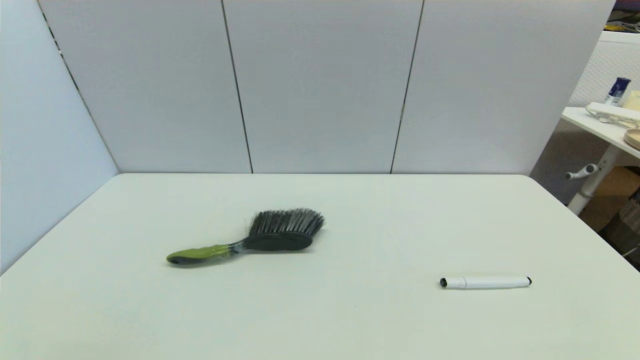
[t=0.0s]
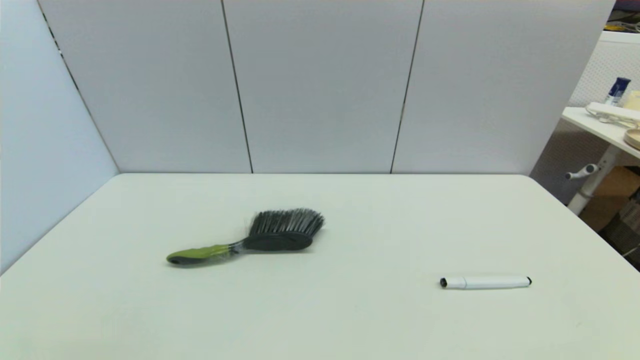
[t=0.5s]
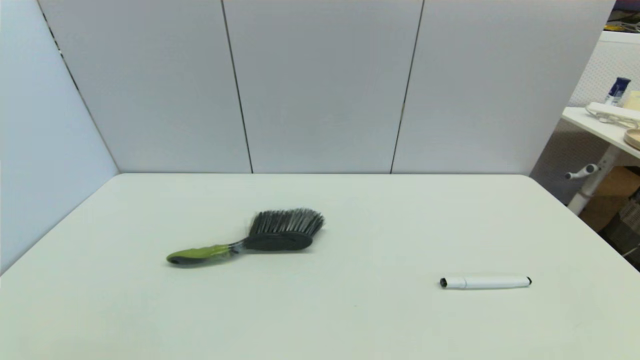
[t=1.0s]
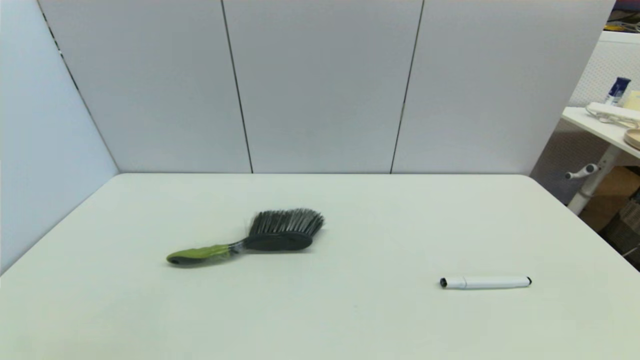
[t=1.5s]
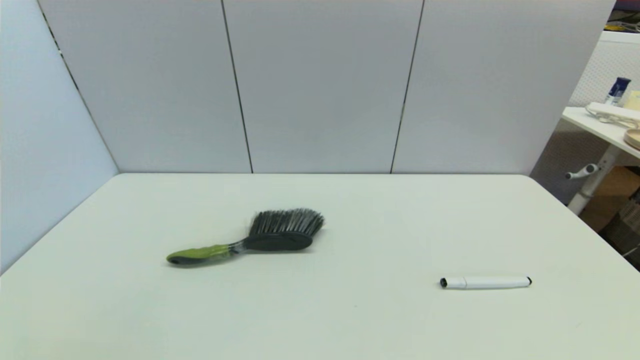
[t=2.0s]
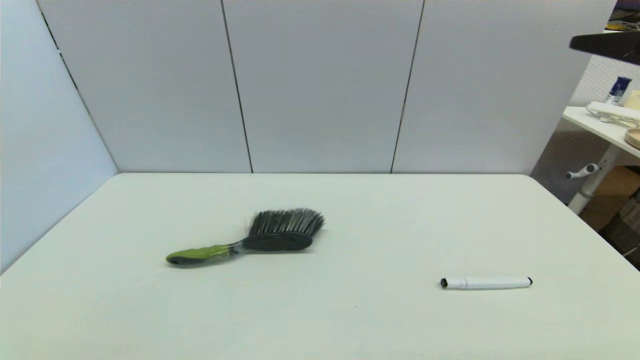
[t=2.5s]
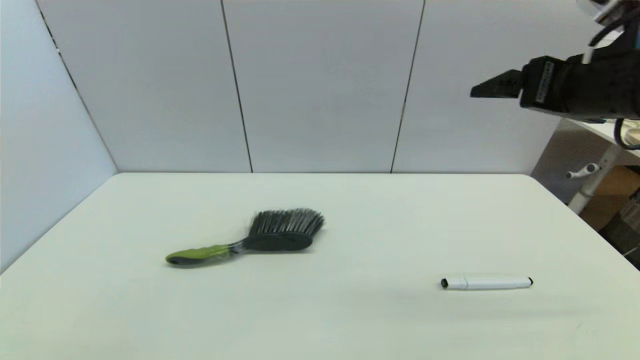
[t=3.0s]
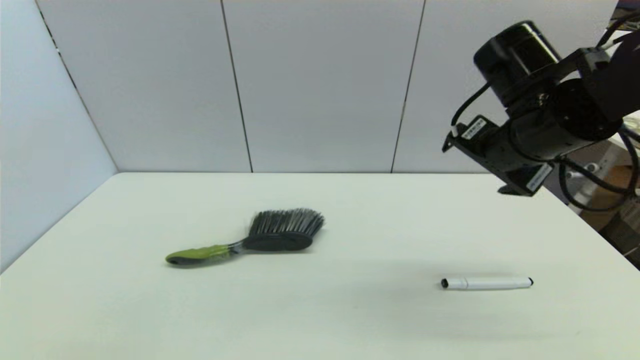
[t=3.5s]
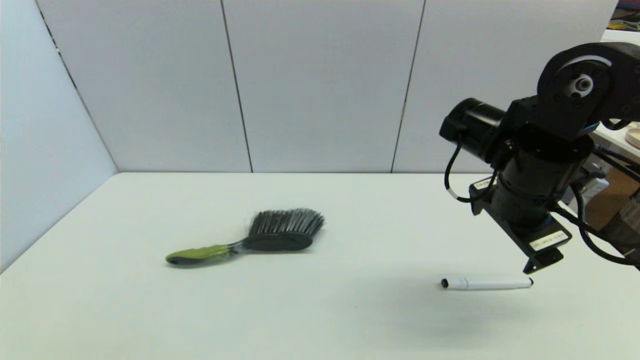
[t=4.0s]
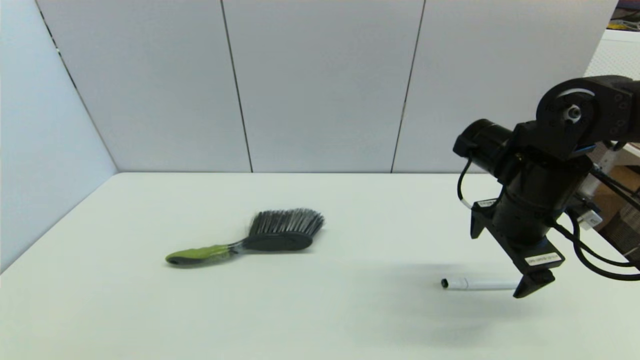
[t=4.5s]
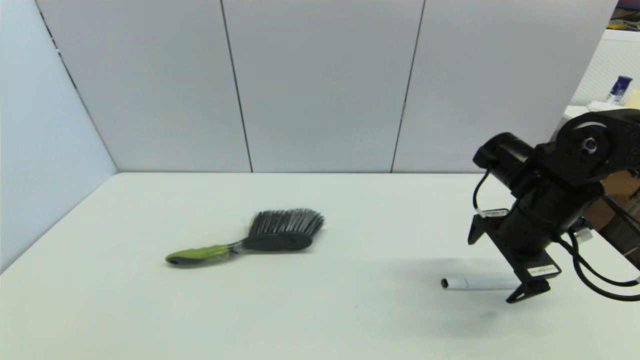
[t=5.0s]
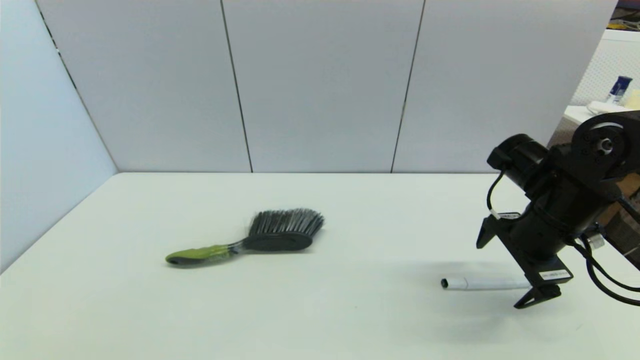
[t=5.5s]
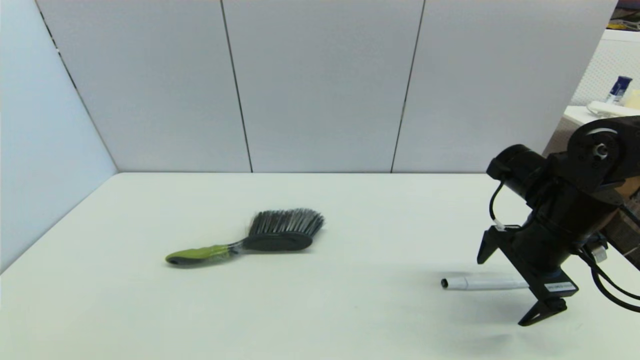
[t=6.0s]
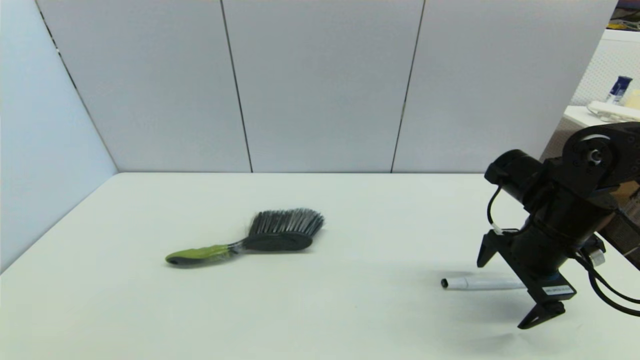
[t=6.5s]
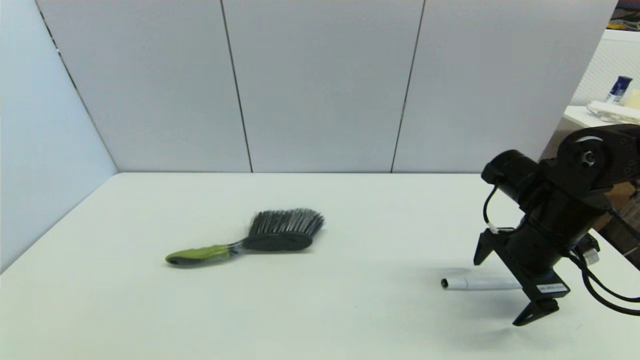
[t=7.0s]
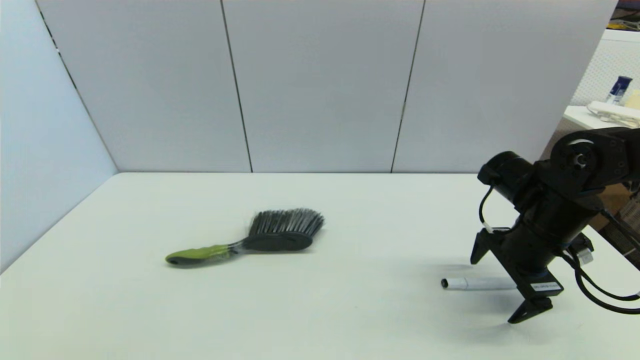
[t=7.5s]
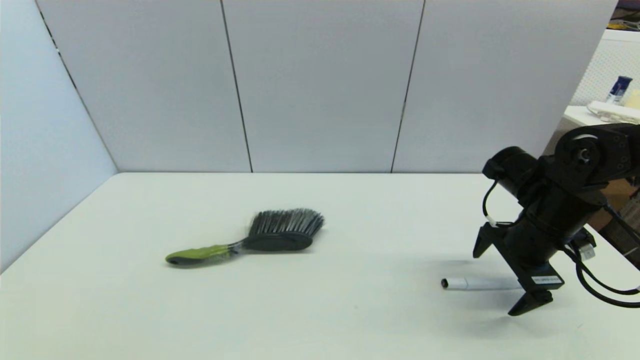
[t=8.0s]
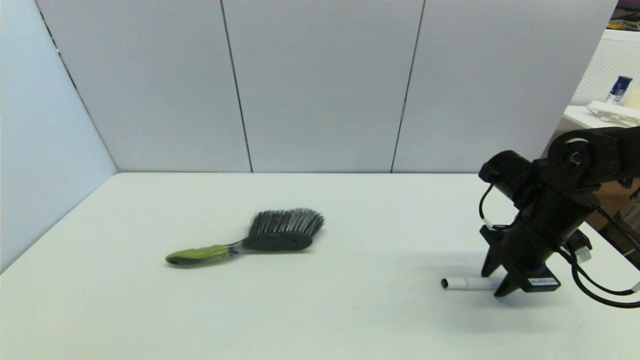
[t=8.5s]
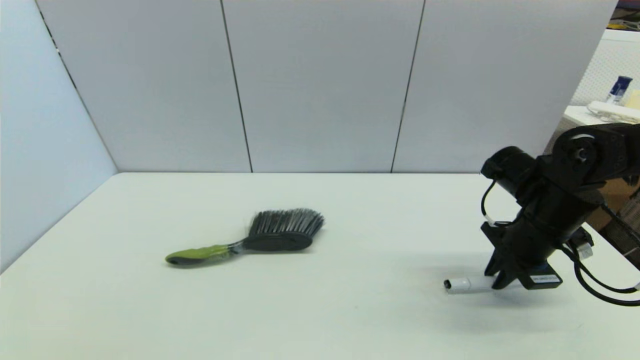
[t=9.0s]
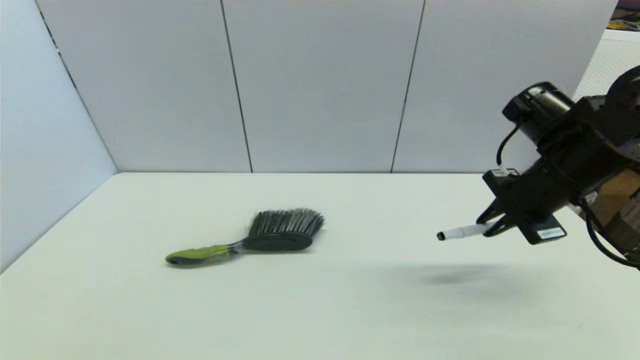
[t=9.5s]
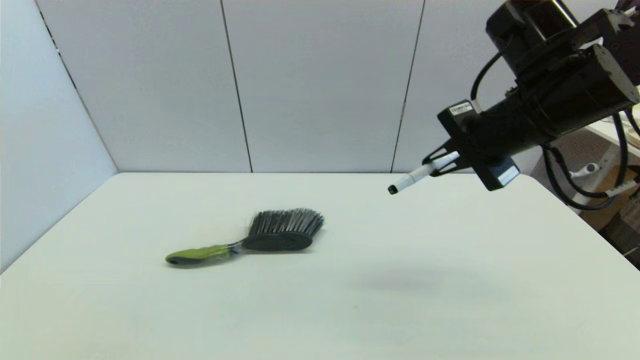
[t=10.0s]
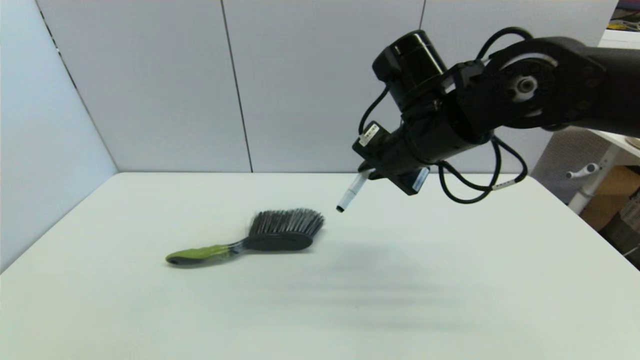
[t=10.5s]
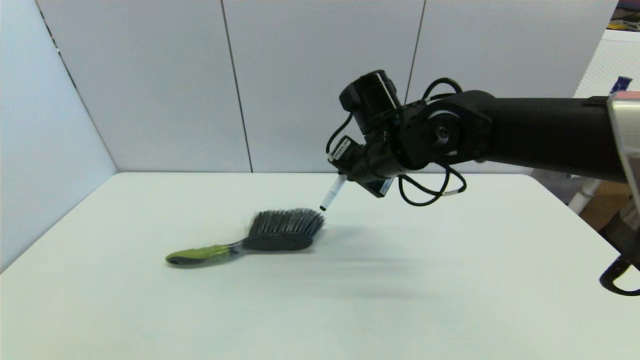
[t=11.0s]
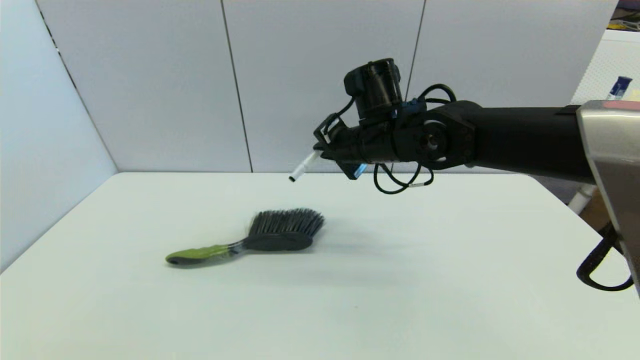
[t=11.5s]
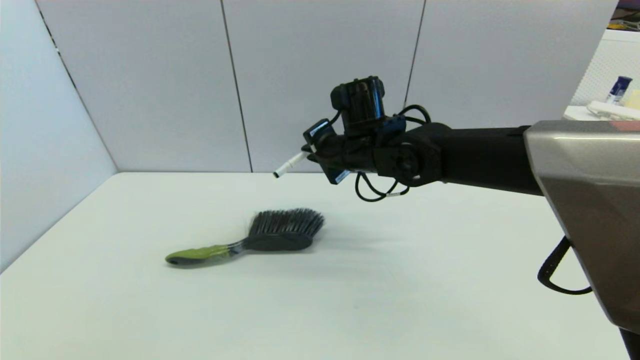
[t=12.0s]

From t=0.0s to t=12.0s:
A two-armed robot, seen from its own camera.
Task of the whole recording: put the black marker in the designated position.
Step, from t=2.5s to t=8.5s: Grasp the Marker pen with right gripper.
From t=2.0s to t=4.0s: The right gripper goes roughly 30 cm forward, to the left and downward.
From t=4.0s to t=6.0s: The right gripper travels to the right and downward by roughly 10 cm.
From t=6.0s to t=8.0s: The grippers make only small movements.
From t=8.0s to t=10.0s: The right gripper goes about 20 cm upward and to the left, and closes up.
From t=10.0s to t=12.0s: The right gripper shifts approximately 20 cm to the left, forward and downward.

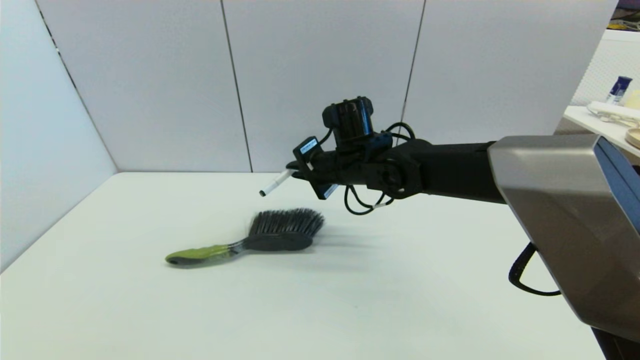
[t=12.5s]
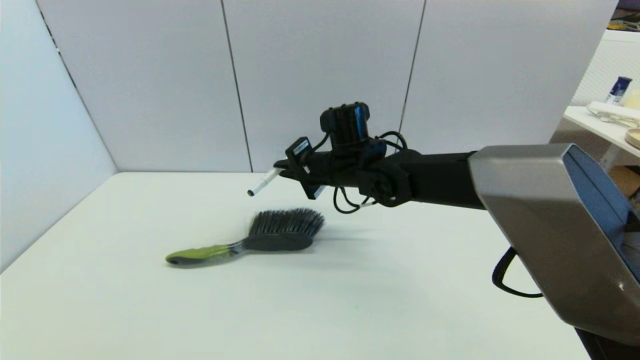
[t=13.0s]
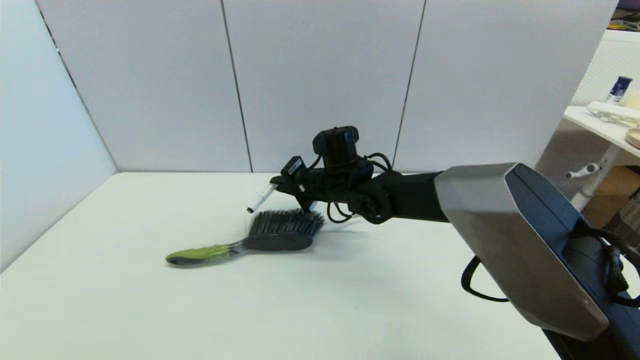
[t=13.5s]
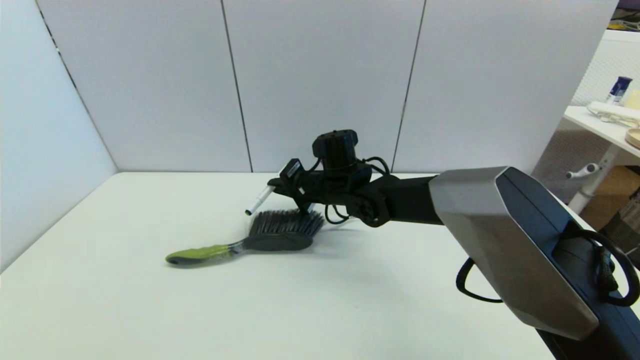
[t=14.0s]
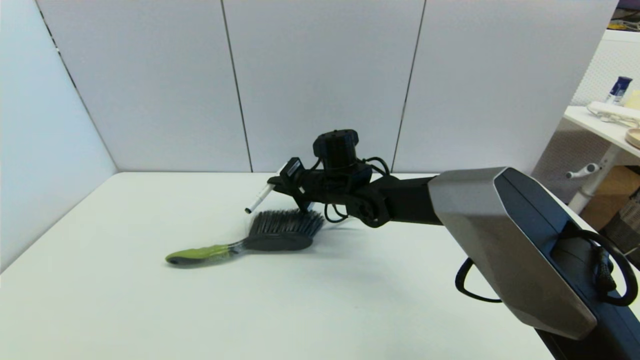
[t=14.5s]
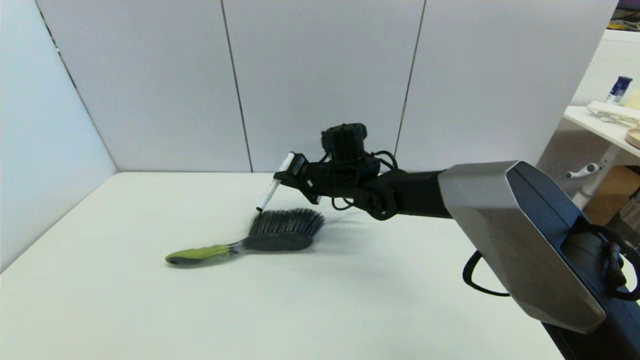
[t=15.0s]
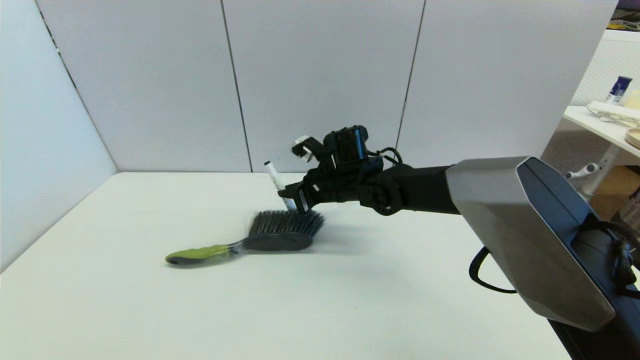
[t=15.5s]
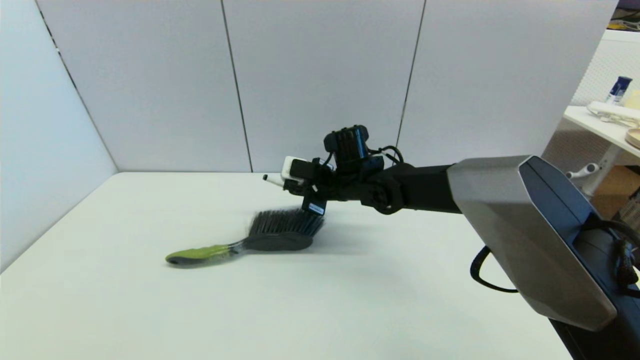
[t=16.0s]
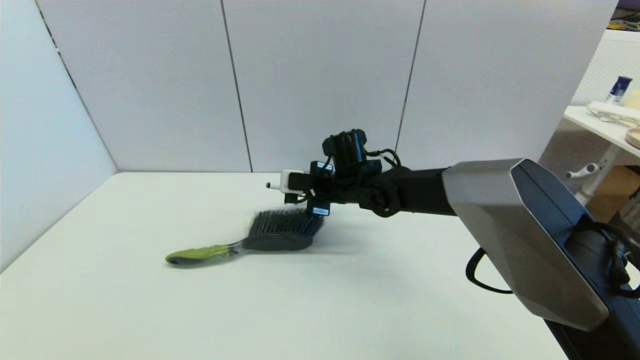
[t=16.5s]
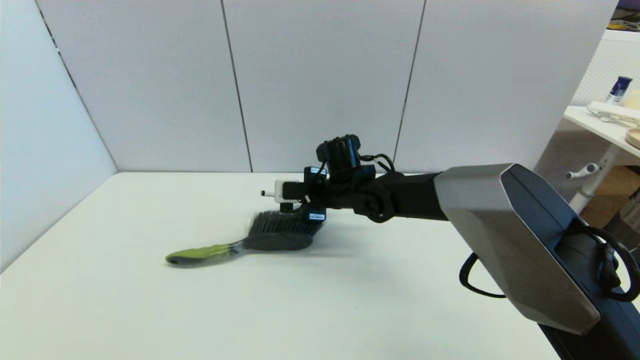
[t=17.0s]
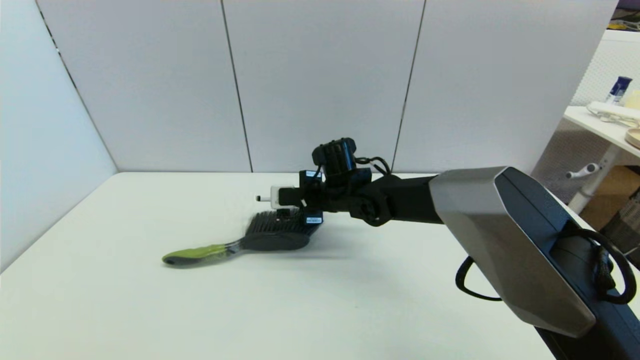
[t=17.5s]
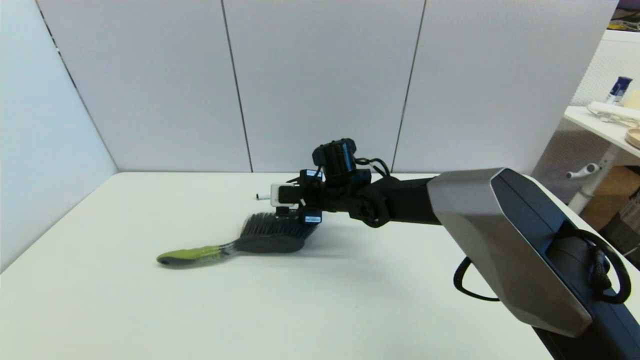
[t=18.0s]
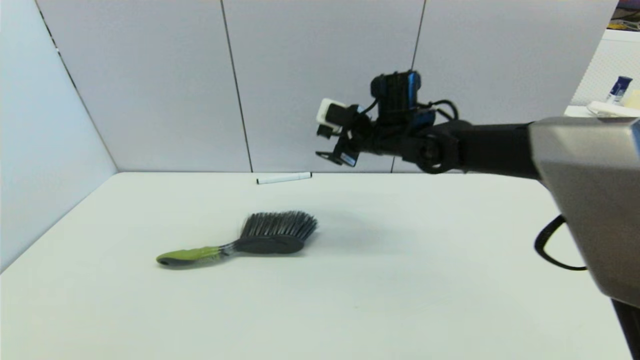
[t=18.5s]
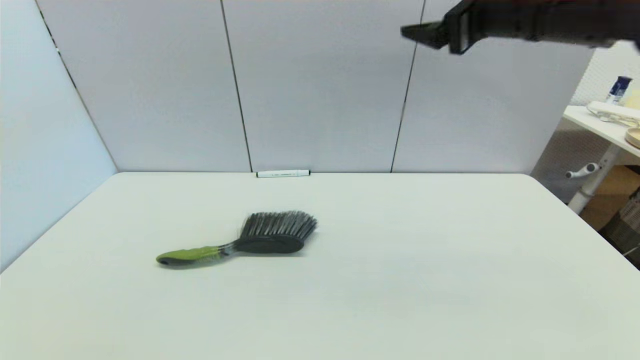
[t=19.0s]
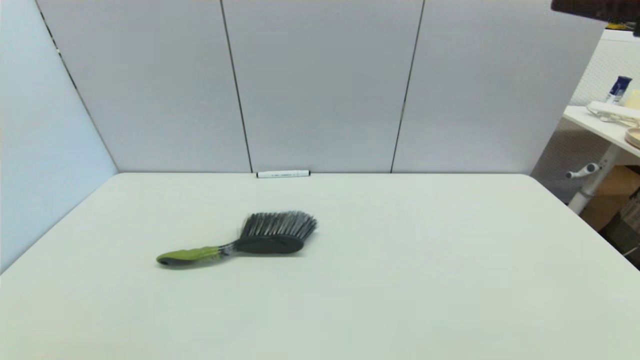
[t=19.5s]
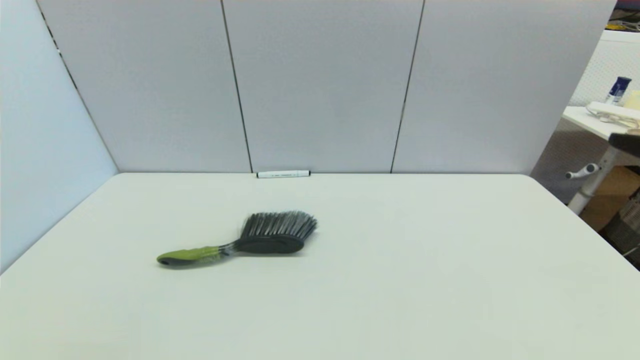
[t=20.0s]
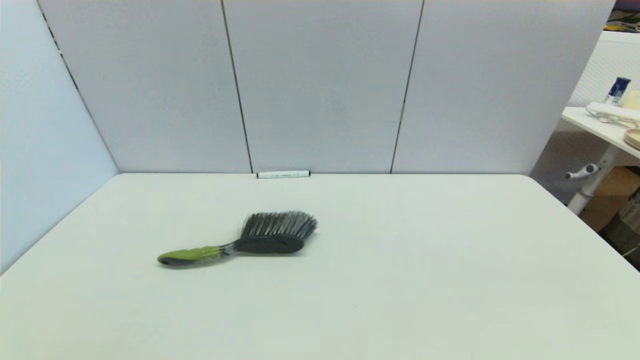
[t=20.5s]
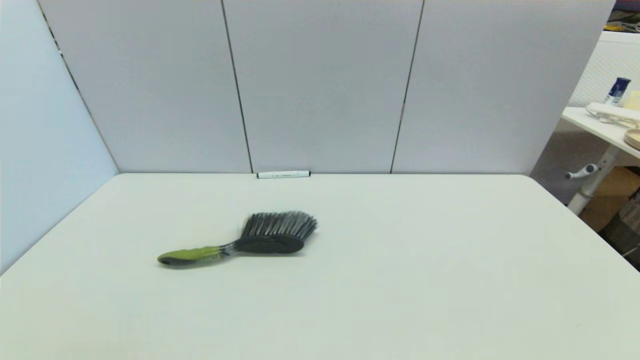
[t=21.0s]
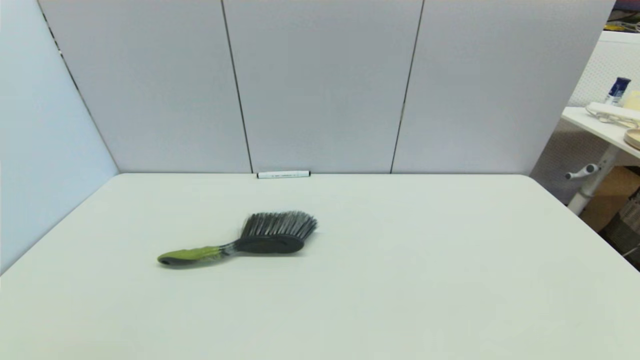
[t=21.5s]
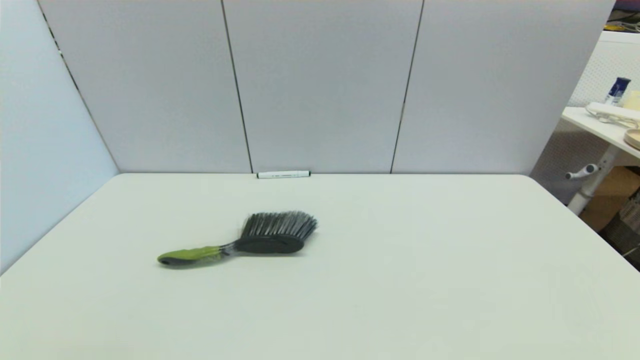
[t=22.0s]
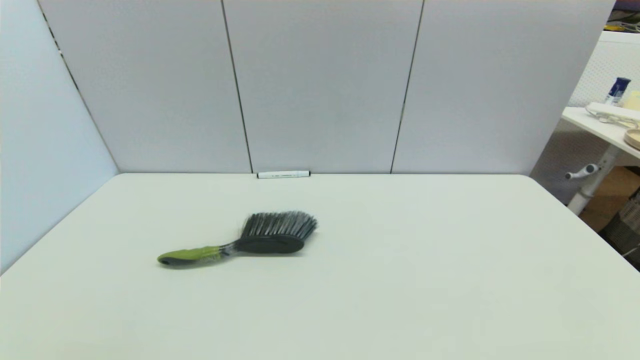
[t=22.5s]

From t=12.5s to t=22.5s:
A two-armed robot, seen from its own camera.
Task of the whole recording: put the black marker in the designated position.
Step, from t=12.5s to t=18.0s: Place the Marker pen on the table with right gripper.
From t=12.5s to t=14.5s: The right gripper travels downward by approximately 5 cm.
From t=16.5s to t=18.5s: The right gripper is displaced upward and to the right by approximately 10 cm, and opens its fingers.
From t=18.5s to t=20.5s: The right gripper goes about 50 cm backward and to the right.
